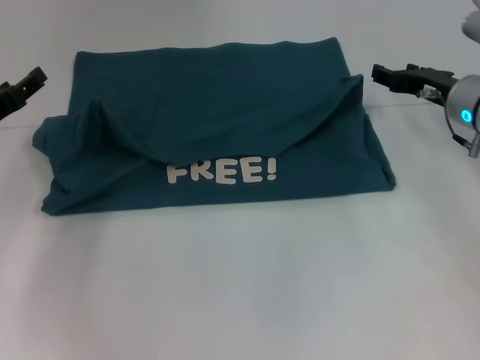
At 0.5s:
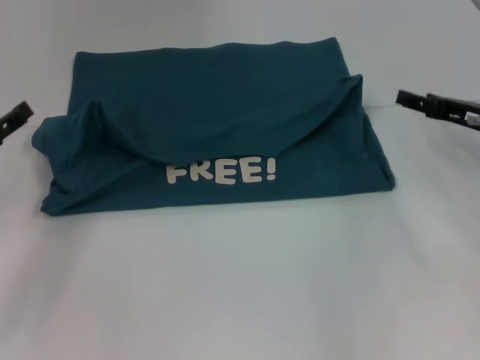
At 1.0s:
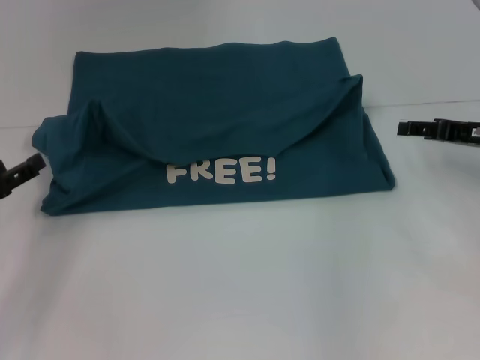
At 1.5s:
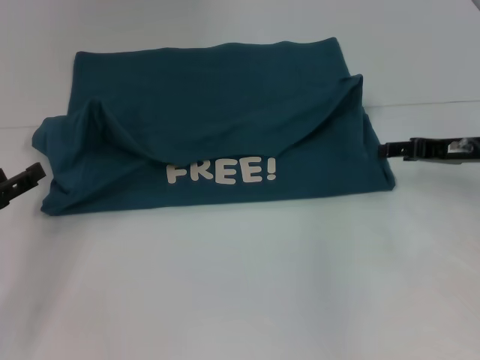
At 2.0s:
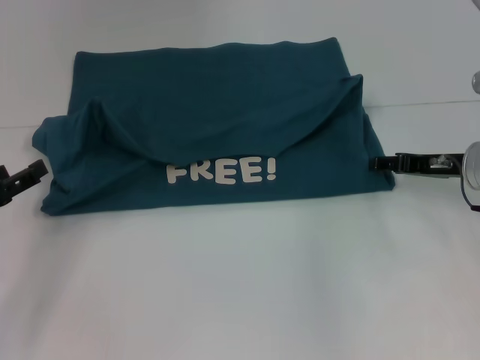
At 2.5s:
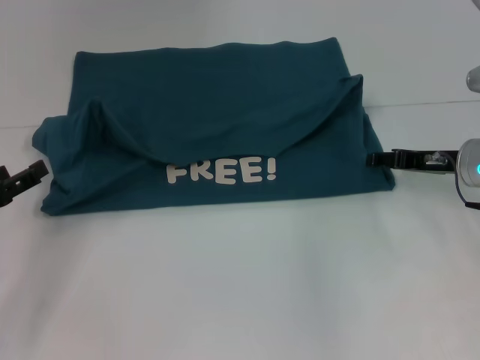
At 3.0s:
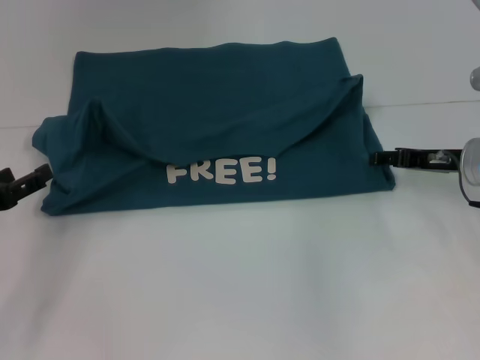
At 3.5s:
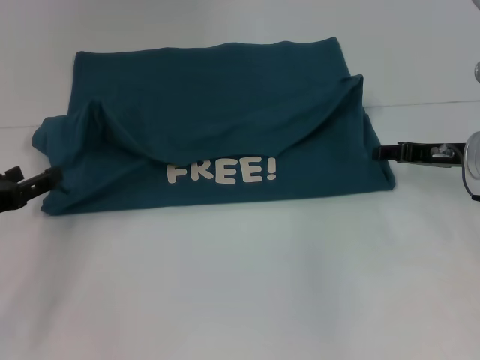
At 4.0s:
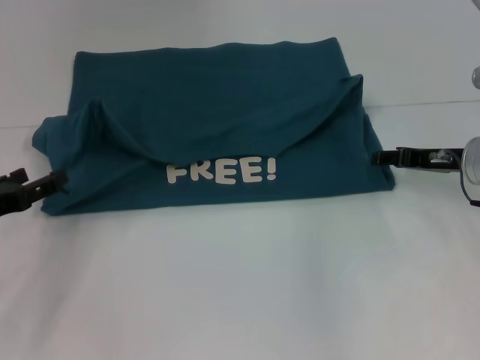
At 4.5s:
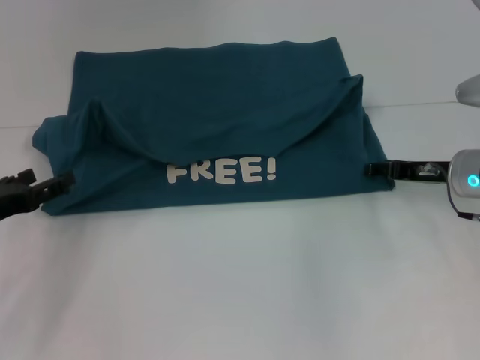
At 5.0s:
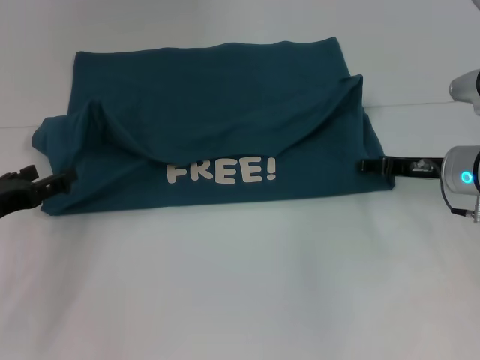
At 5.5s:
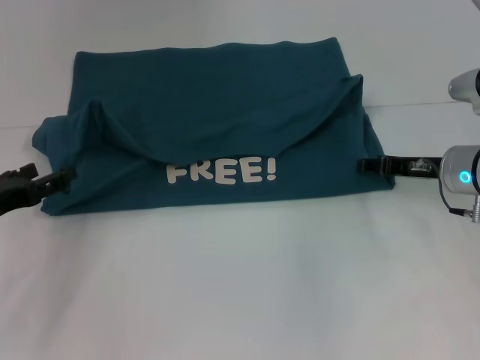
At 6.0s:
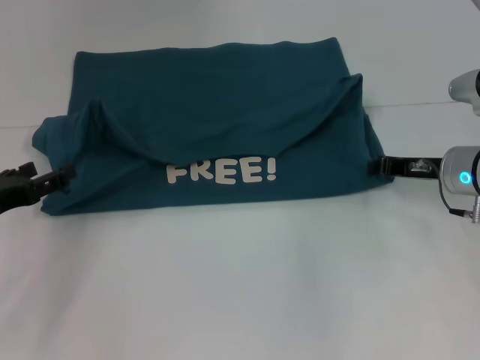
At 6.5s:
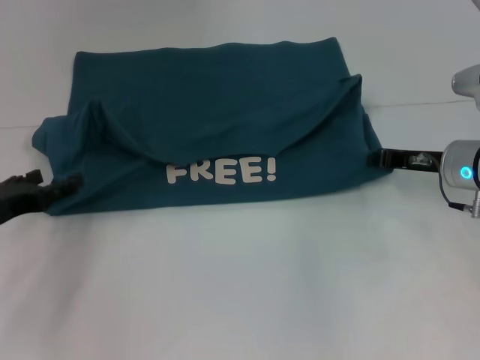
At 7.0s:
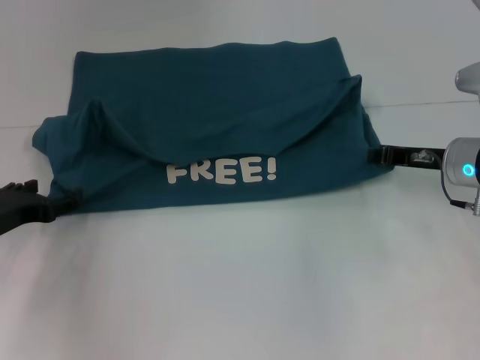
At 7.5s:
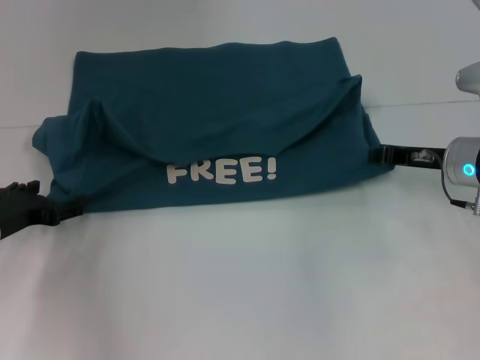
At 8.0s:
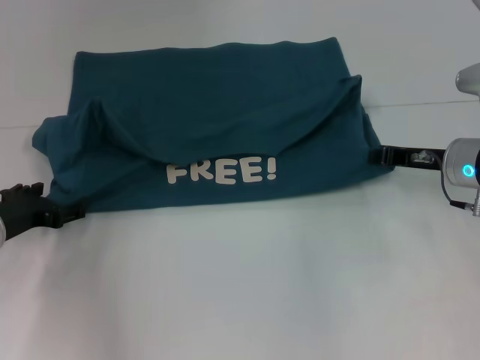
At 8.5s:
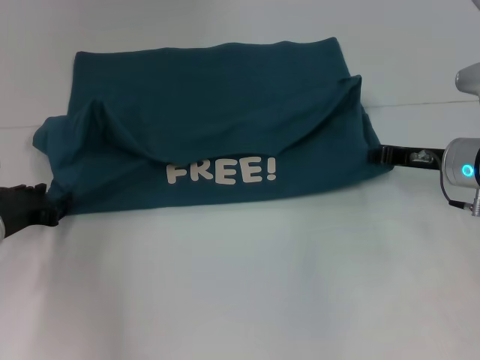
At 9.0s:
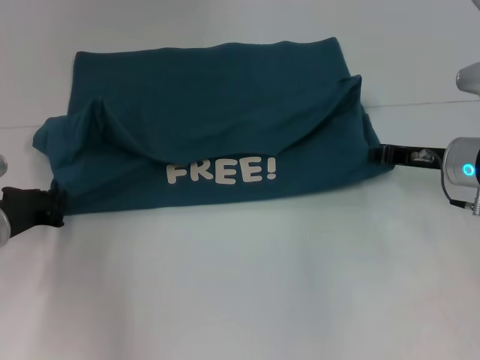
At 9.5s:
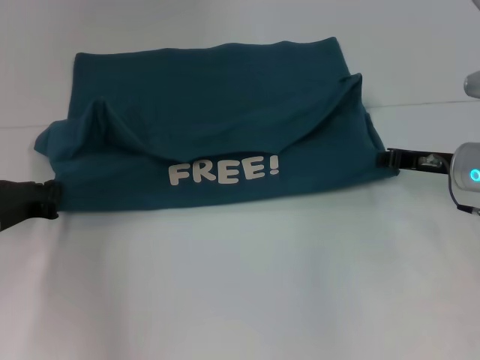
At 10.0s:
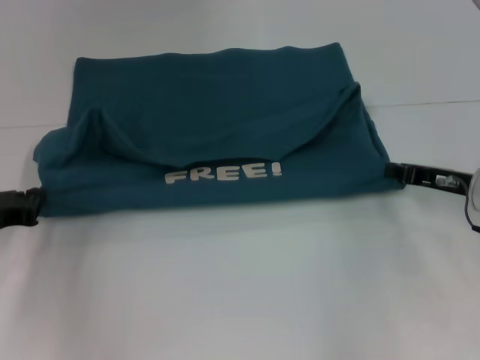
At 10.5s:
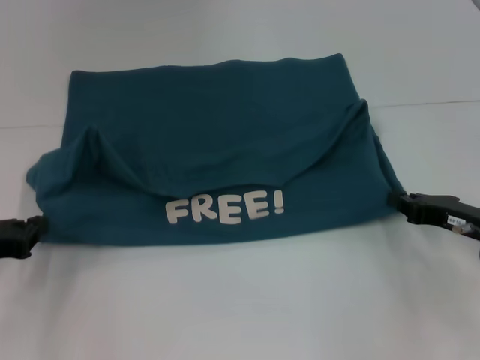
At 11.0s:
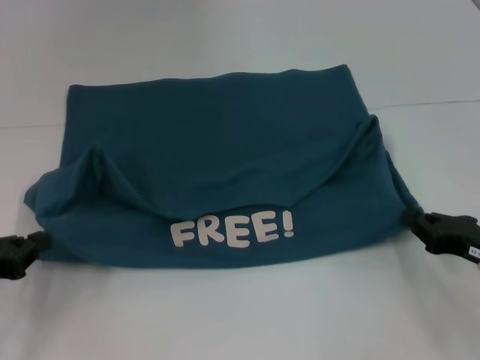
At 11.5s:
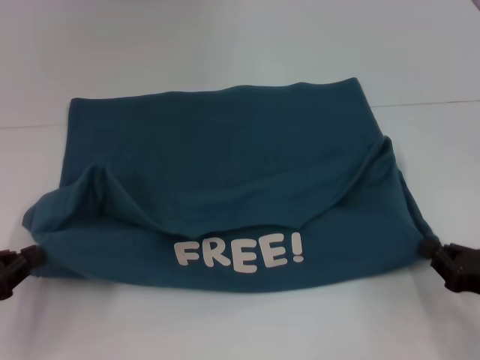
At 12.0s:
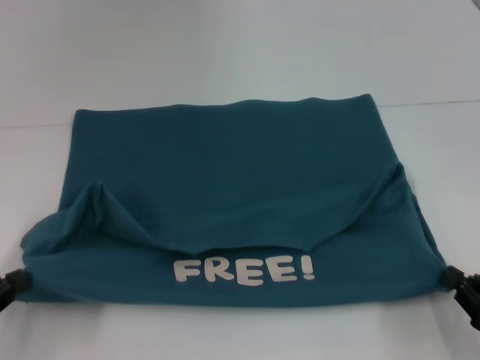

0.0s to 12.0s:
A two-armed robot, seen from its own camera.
0.0s to 2.0s: The left gripper shifts roughly 10 cm backward, and opens up. Meanwhile the right gripper ends up approximately 5 cm from where it was.
2.0s to 4.0s: The grippers stay close to where they were, moving slightly.
4.0s to 6.0s: The right gripper closes up.
6.0s to 8.0s: The left gripper ends up about 5 cm from where it was.
8.0s to 10.0s: The left gripper closes its fingers.
10.0s to 12.0s: The right gripper moves backward, approximately 20 cm. Meanwhile the left gripper goes approximately 10 cm backward.

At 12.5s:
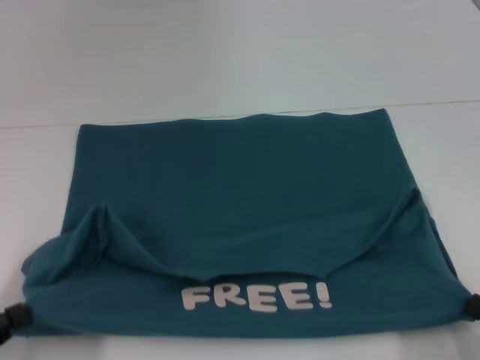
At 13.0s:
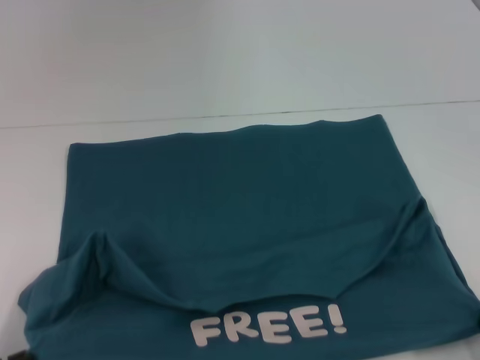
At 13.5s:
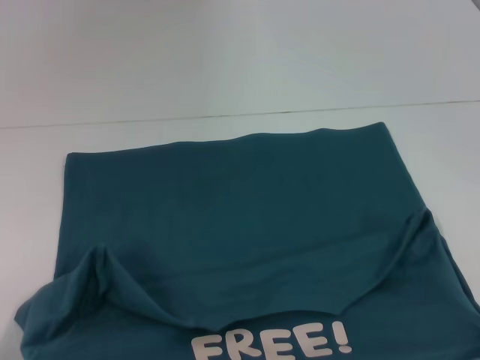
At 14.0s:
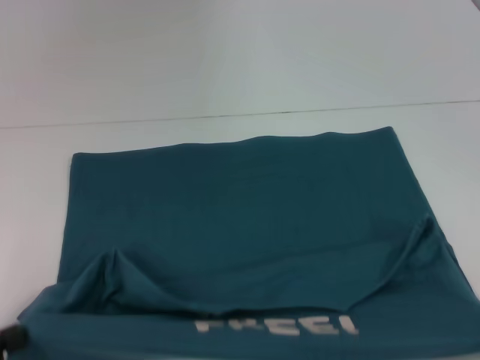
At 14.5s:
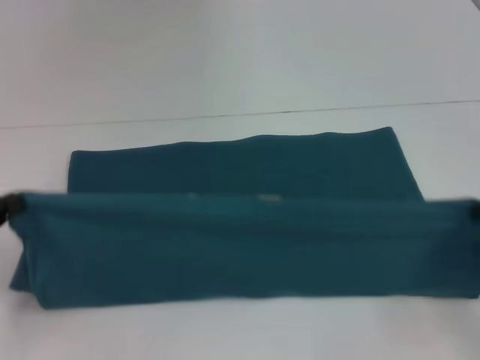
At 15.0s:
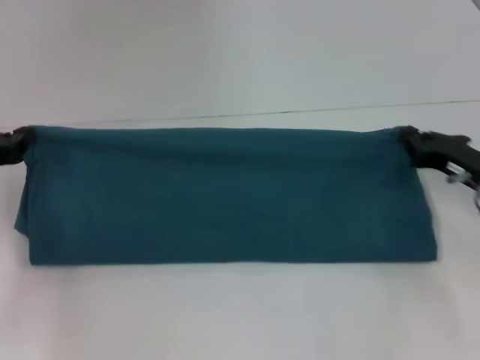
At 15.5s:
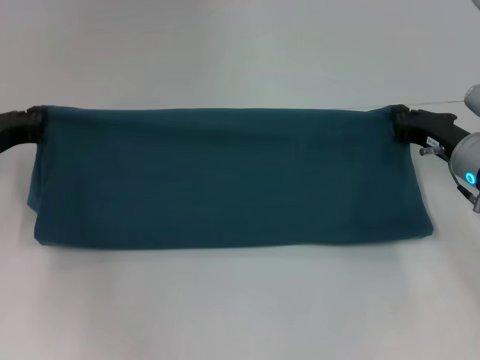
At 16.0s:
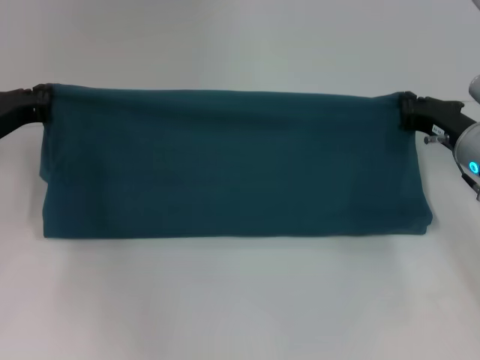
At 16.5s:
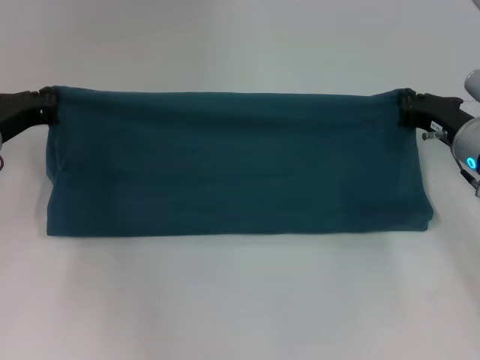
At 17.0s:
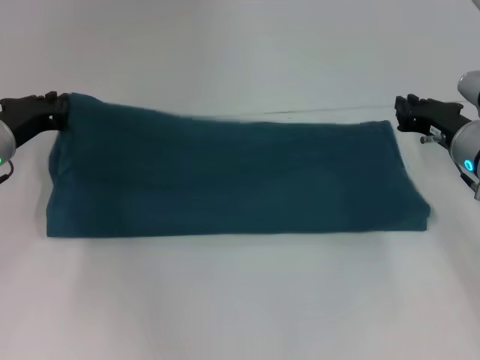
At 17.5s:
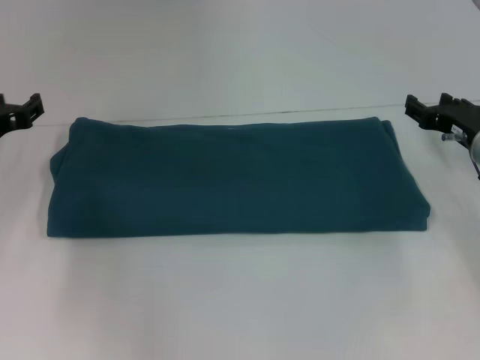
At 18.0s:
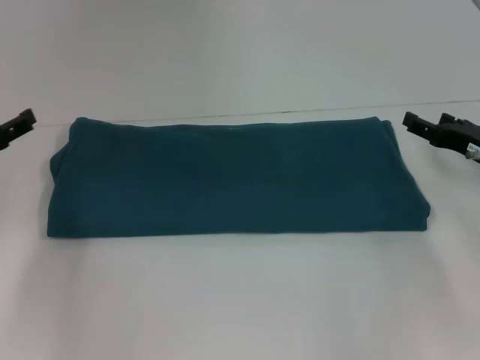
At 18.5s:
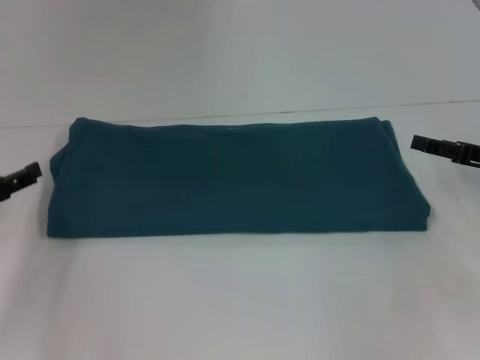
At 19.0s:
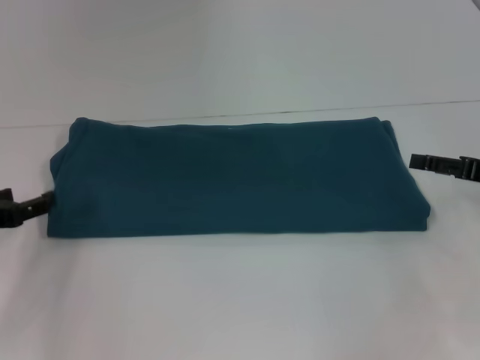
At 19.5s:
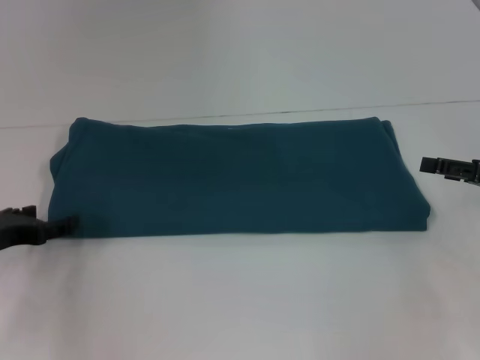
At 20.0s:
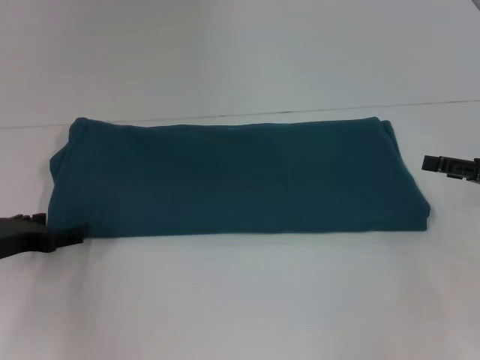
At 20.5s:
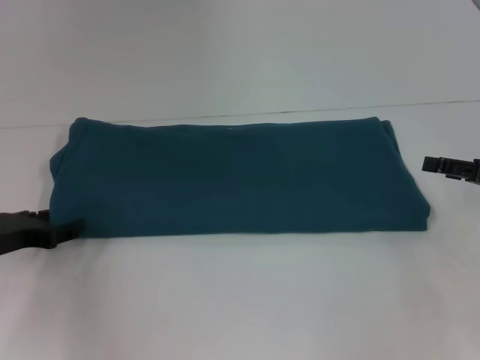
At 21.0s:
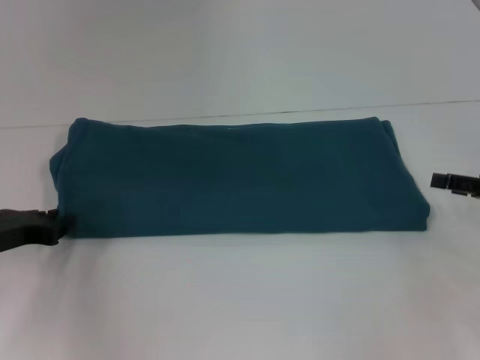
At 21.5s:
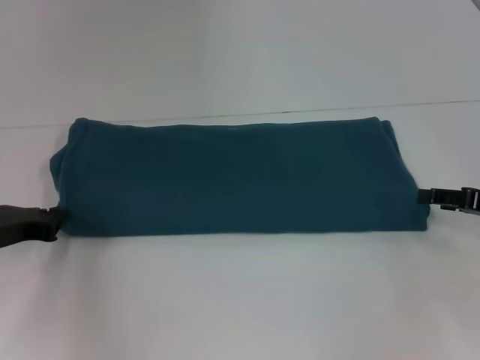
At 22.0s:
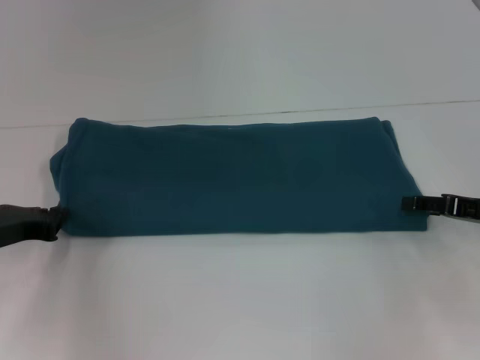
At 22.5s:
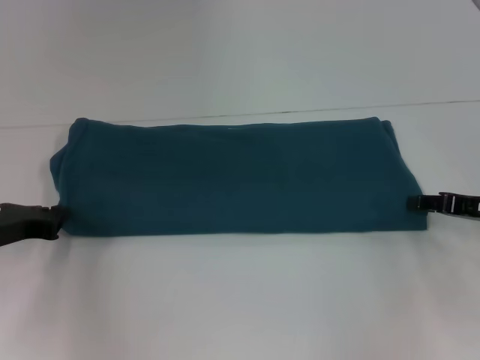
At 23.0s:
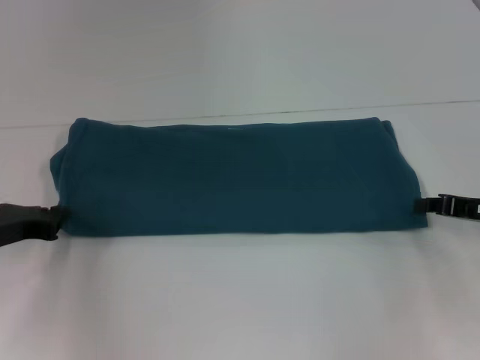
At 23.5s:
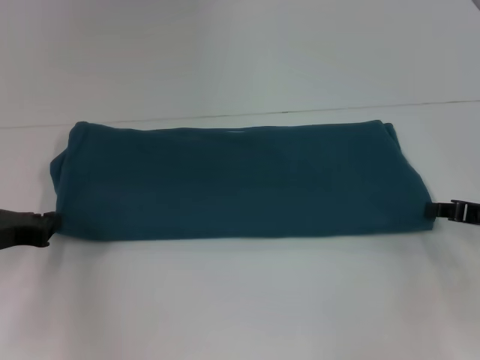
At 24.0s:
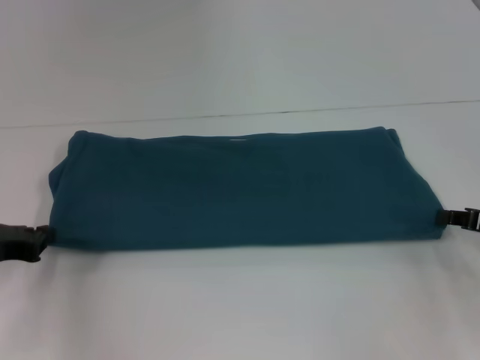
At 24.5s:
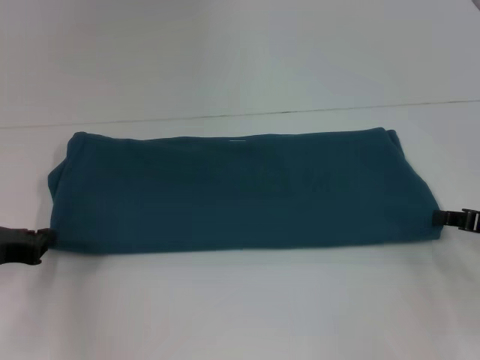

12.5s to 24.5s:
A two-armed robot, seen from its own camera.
Step, 13.5s to 17.0s: Fold the clothes to the left.
Step, 13.5s to 17.0s: Fold the clothes to the right.
12.5s to 14.5s: The grippers both shift forward by approximately 5 cm.
14.5s to 16.5s: The right gripper travels forward and to the left by roughly 20 cm, while the left gripper travels forward and to the right by some 15 cm.
16.5s to 18.5s: The right gripper heads to the right and backward, covering approximately 10 cm, and opens up, while the left gripper shifts roughly 10 cm backward and to the left, and opens its fingers.
20.5s to 22.5s: The left gripper closes its fingers.
22.5s to 24.5s: The right gripper closes up.

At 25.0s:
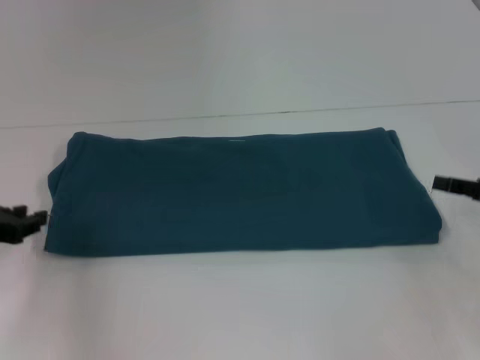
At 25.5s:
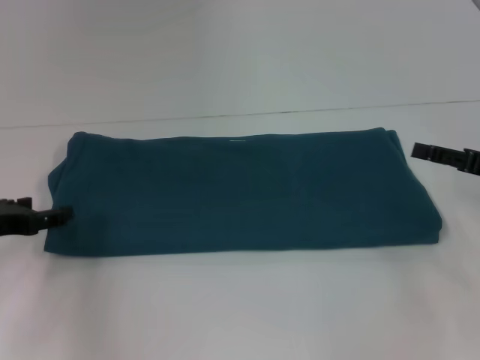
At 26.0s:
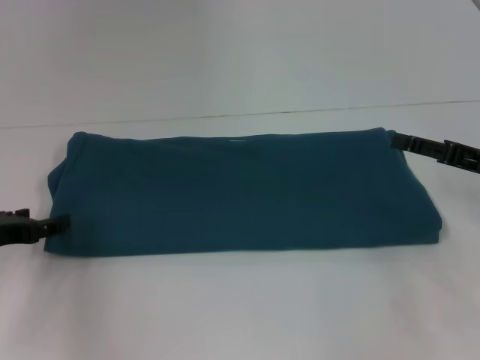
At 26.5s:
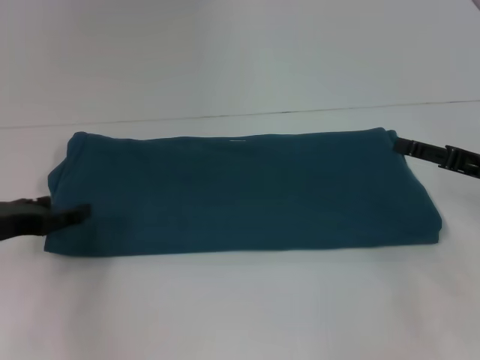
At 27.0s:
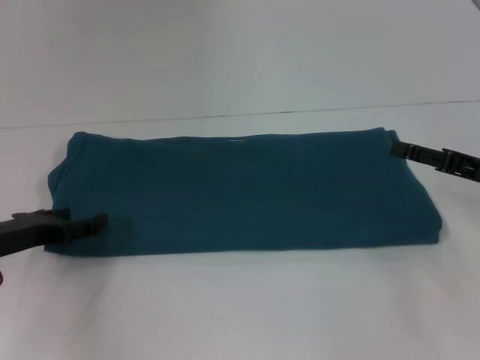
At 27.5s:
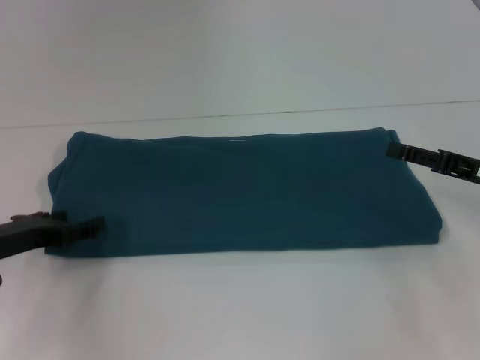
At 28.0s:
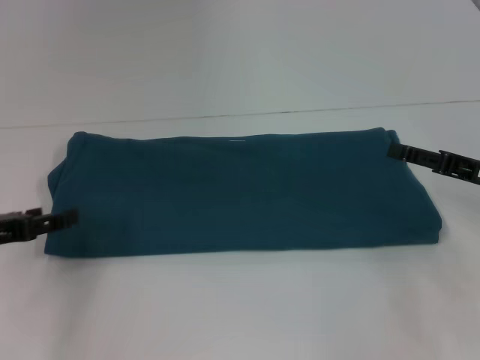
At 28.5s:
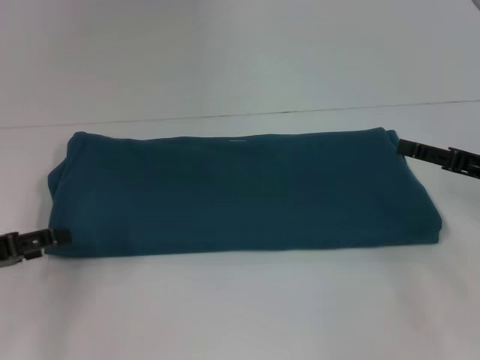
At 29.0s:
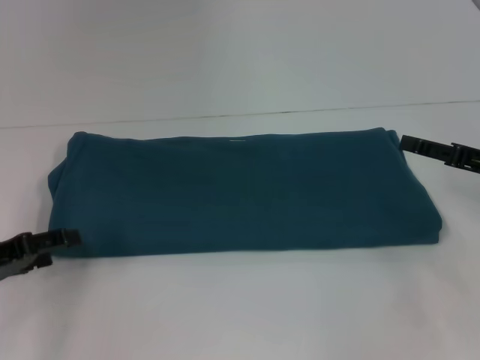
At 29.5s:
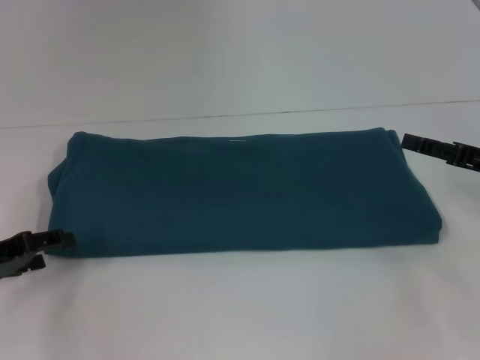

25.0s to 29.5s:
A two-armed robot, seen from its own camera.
25.0s to 27.0s: The right gripper opens up. The left gripper opens up.
